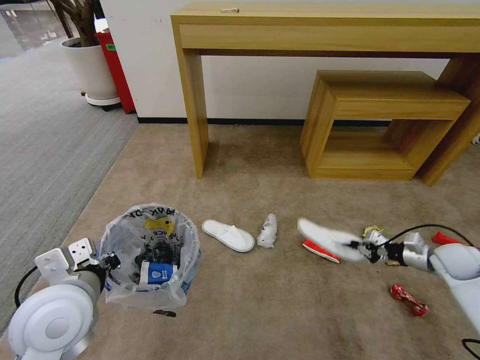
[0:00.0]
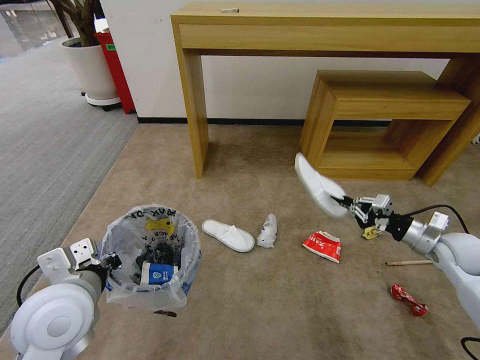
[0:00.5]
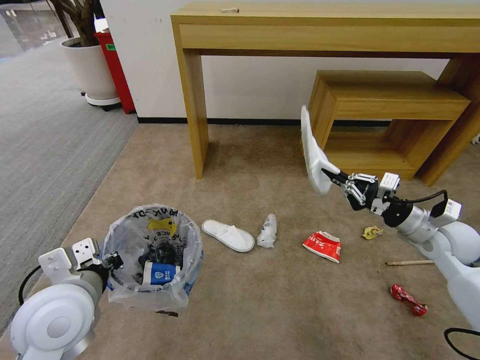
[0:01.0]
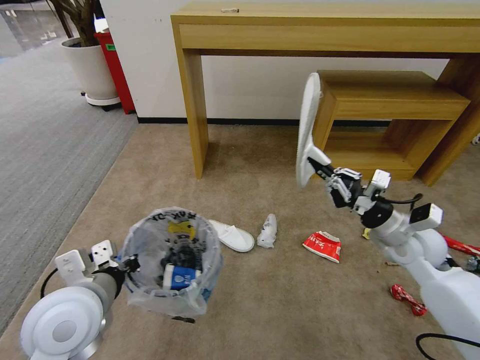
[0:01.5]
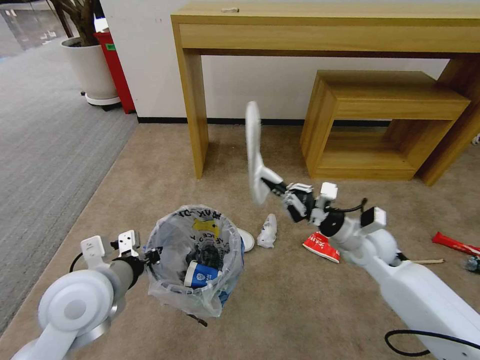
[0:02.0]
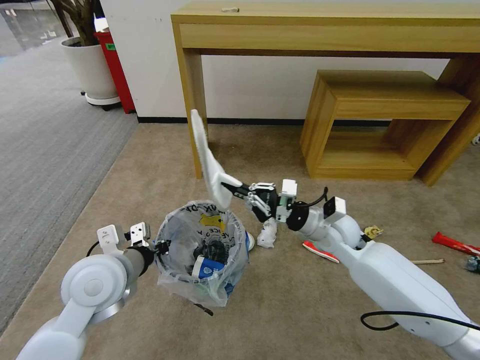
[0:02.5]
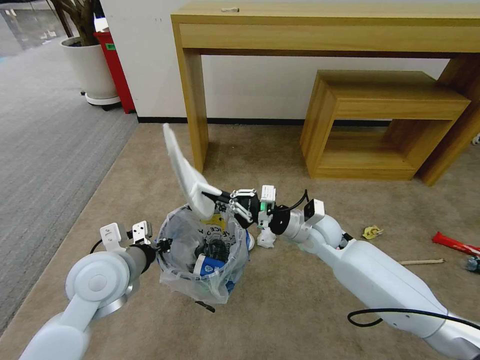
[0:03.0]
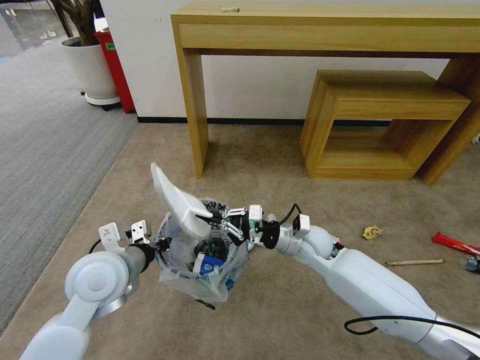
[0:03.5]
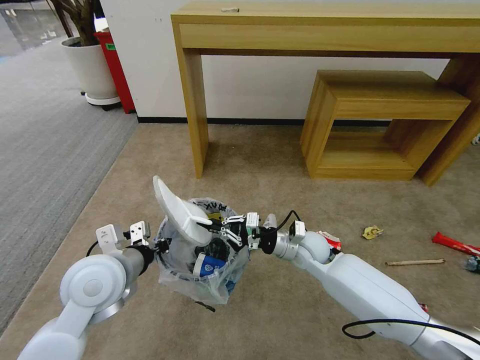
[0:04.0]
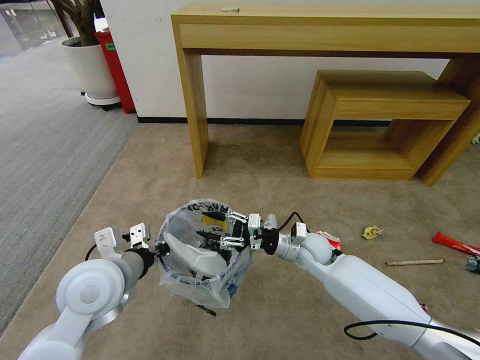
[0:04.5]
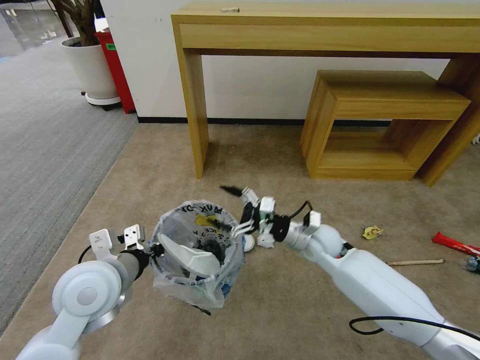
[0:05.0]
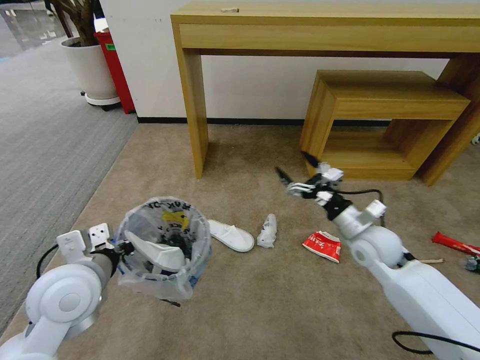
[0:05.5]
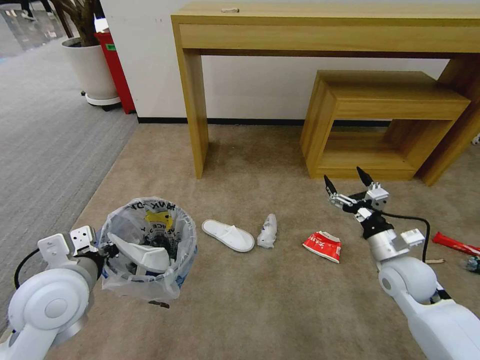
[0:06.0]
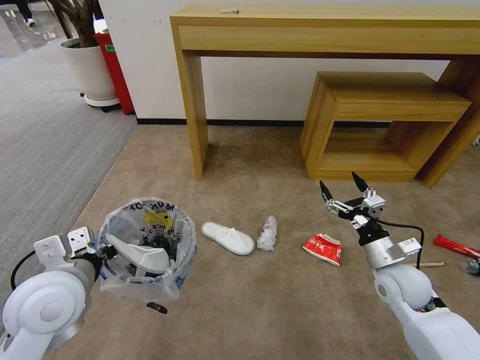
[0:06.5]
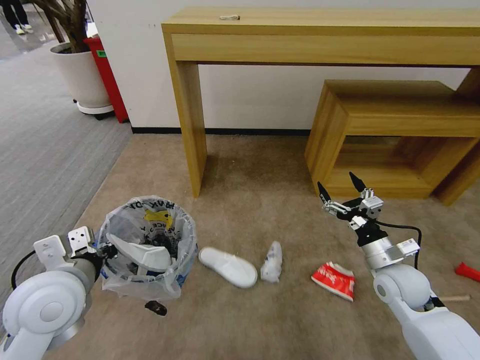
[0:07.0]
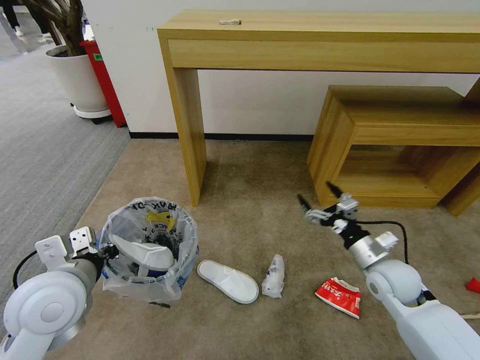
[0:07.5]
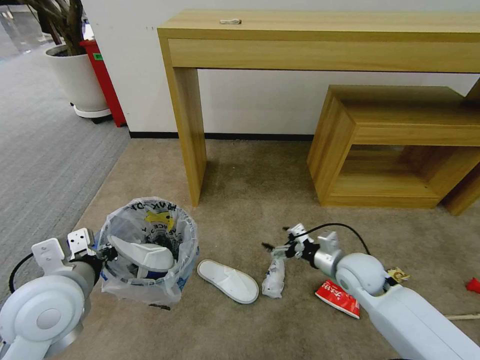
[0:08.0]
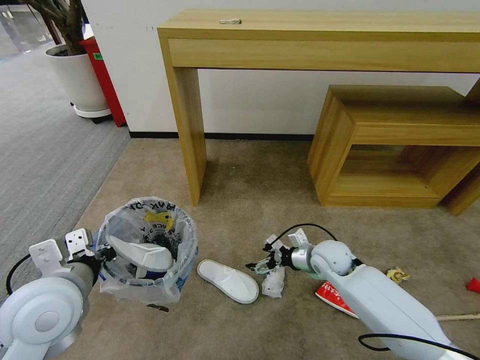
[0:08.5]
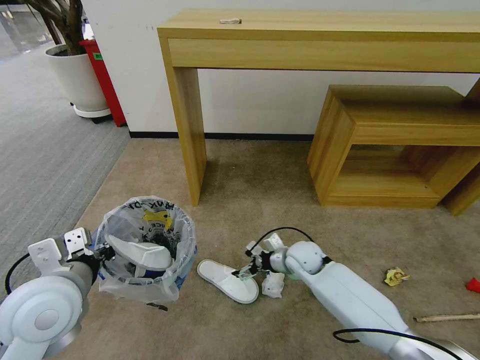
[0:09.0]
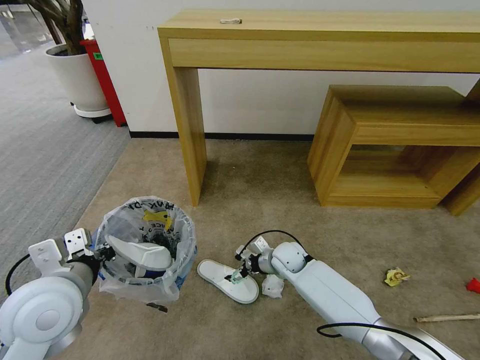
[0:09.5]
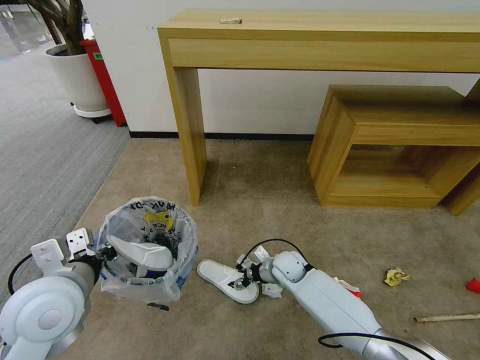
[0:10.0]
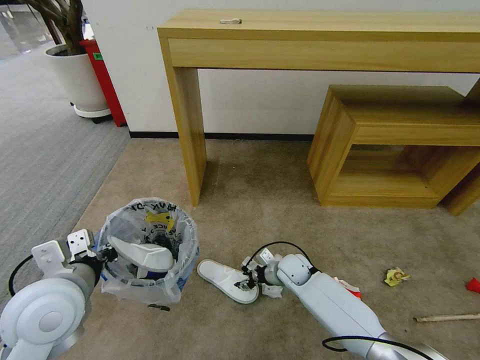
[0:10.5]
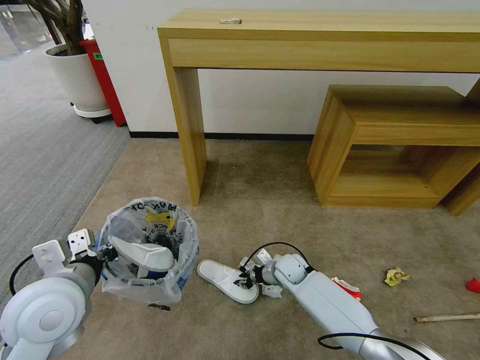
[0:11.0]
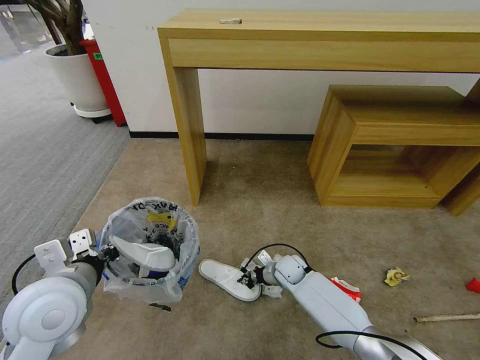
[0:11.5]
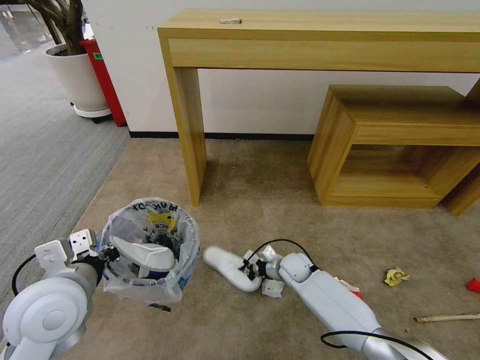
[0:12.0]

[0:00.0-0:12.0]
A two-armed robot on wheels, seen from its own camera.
Task of the whole recording: Pick up the trash bin and place the garbage on the floor into it.
0:00.0 to 0:02.0: The right gripper heads to the left, covering approximately 25 cm.
0:02.0 to 0:04.0: The right gripper travels to the left and downward by roughly 15 cm.
0:04.0 to 0:06.0: The left gripper changes place by approximately 5 cm. The right gripper travels to the right and backward by about 20 cm, and opens up.
0:06.0 to 0:08.0: The right gripper is displaced to the left by approximately 10 cm.
0:08.0 to 0:10.0: The right gripper shifts about 20 cm to the left, downward and forward.
0:10.0 to 0:12.0: The right gripper closes.

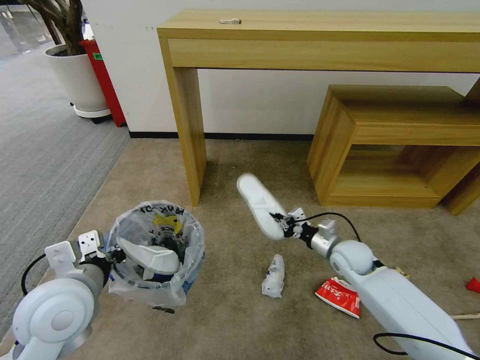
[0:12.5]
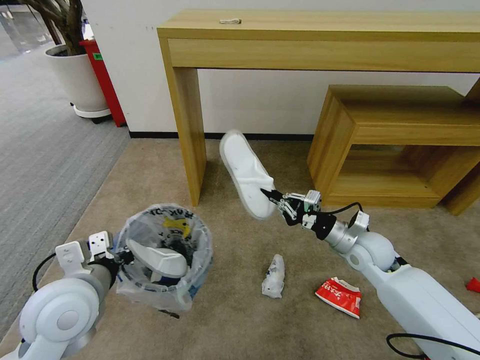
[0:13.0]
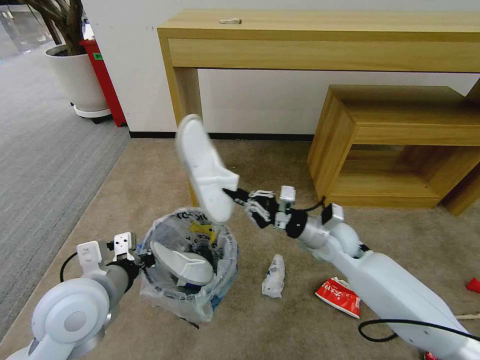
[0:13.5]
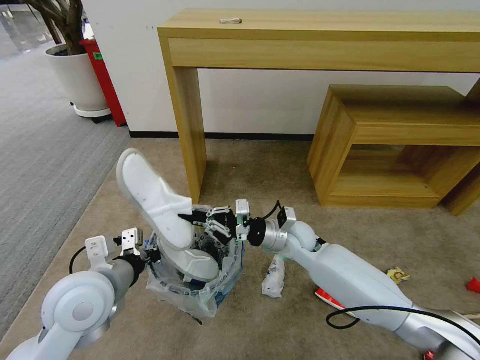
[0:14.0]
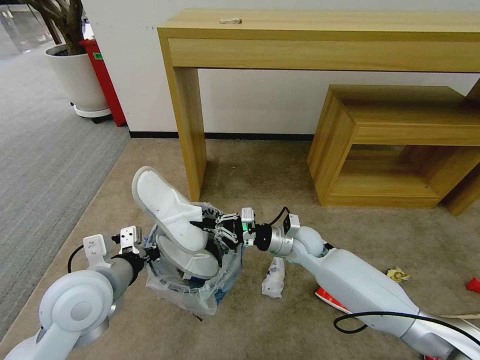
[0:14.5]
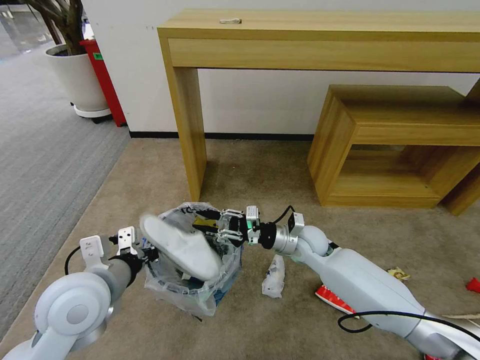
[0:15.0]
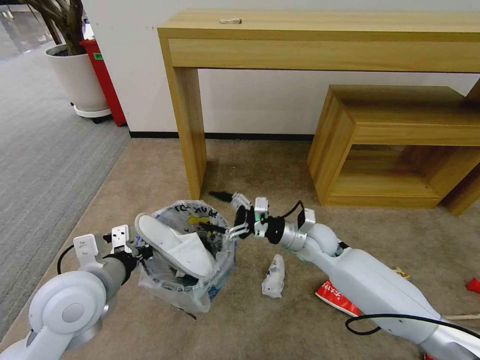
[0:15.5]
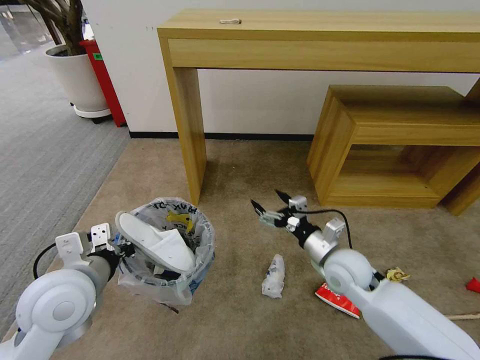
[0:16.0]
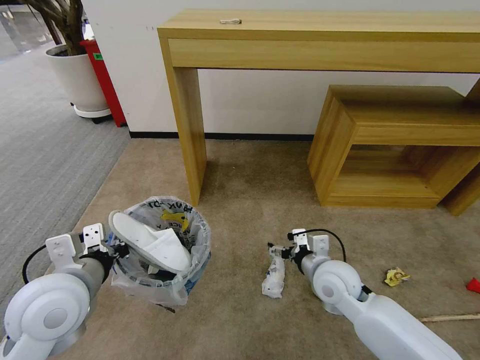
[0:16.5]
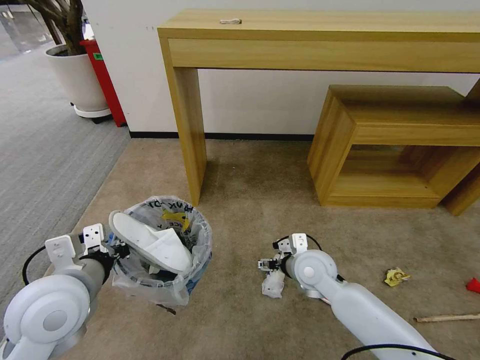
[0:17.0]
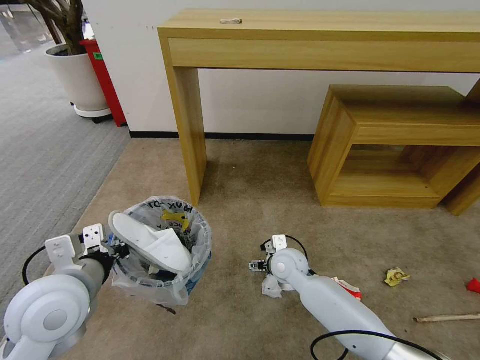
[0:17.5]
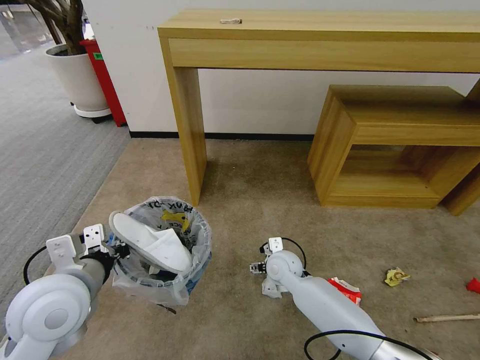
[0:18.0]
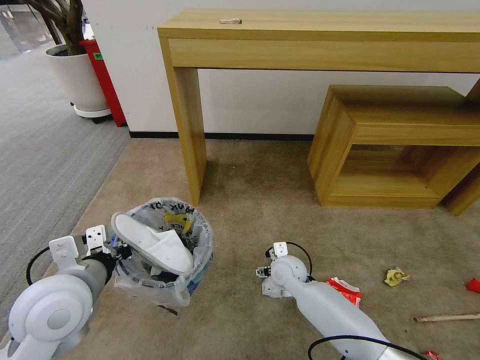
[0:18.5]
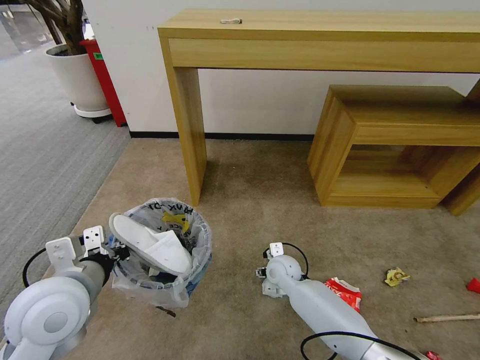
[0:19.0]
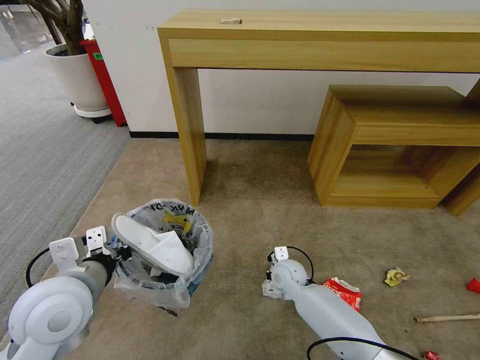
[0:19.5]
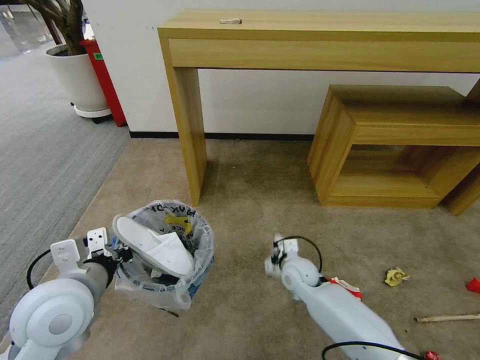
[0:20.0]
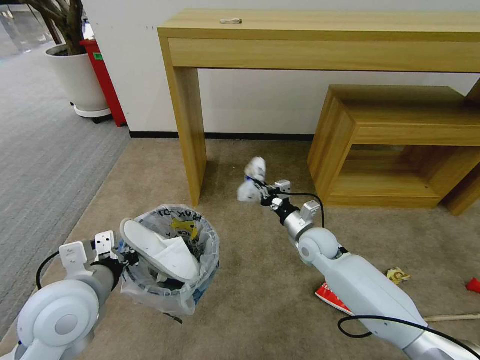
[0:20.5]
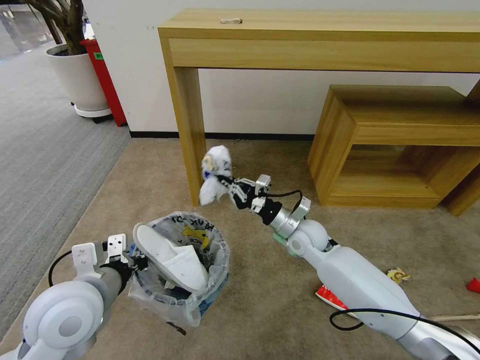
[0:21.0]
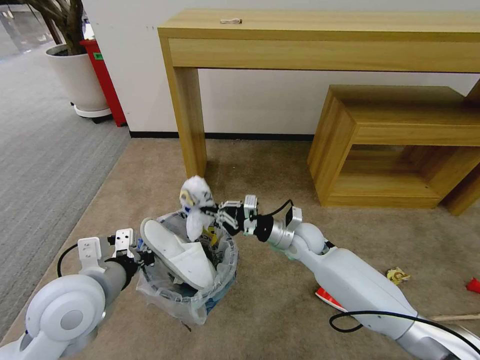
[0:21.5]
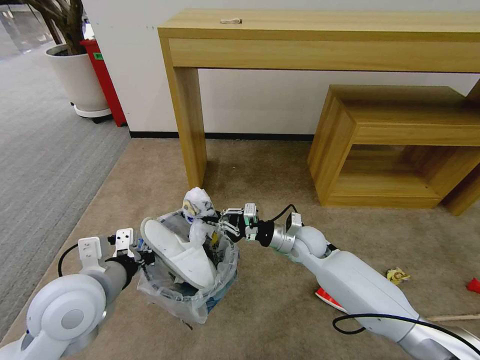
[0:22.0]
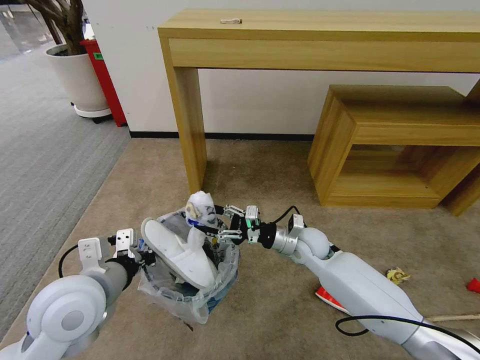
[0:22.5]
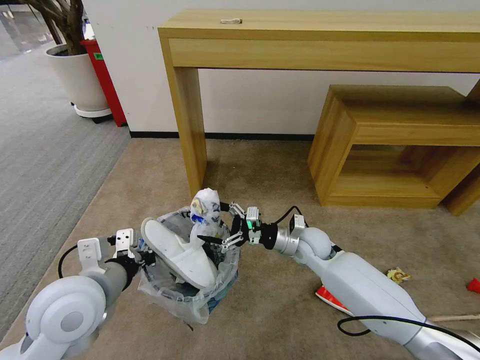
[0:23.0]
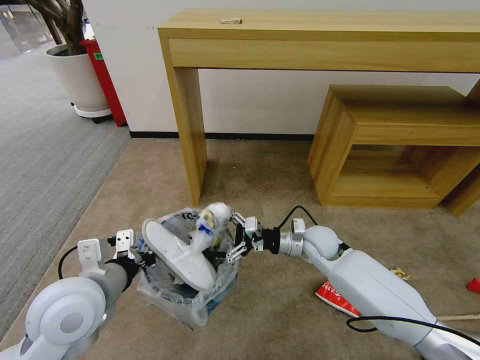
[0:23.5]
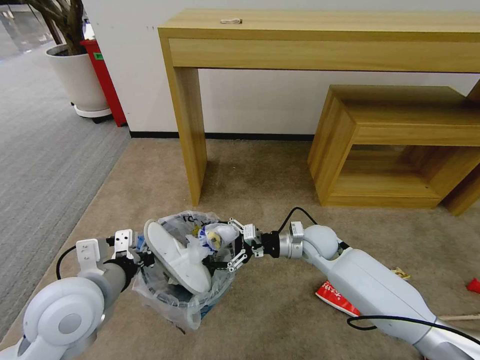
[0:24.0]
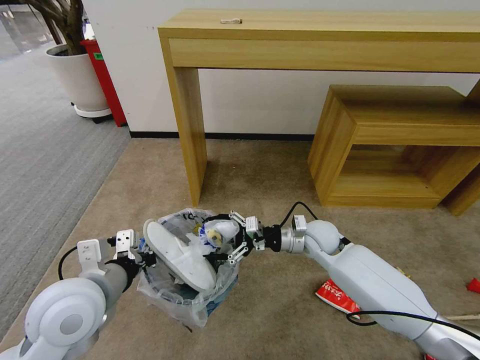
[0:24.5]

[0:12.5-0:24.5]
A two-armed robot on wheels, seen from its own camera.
Task of the whole recording: Pick up the trash bin and place the garbage on the floor into it.
0:12.5 to 0:14.5: The right gripper shifts approximately 10 cm to the left.
0:14.5 to 0:16.5: The right gripper moves backward, about 10 cm, and opens.
0:16.5 to 0:18.5: The right gripper shifts some 15 cm downward, to the left and forward.
0:18.5 to 0:20.5: The right gripper is displaced upward and to the right by roughly 10 cm, and closes up.
0:20.5 to 0:22.5: The right gripper opens up.
0:22.5 to 0:24.5: The right gripper opens its fingers.

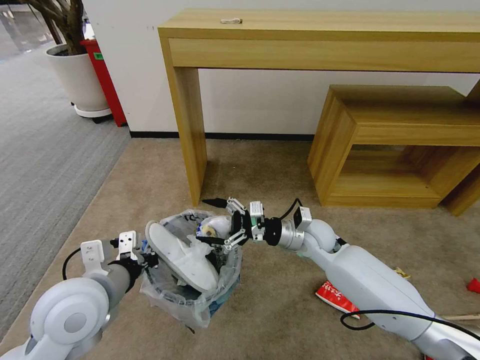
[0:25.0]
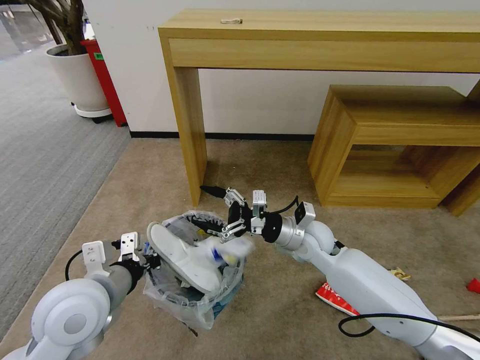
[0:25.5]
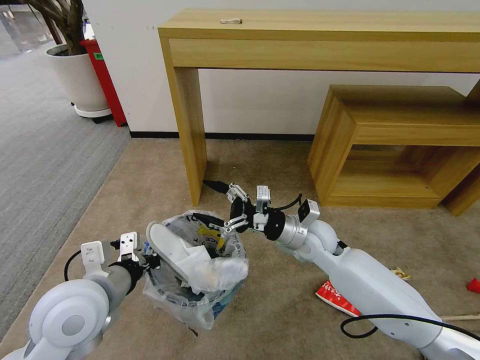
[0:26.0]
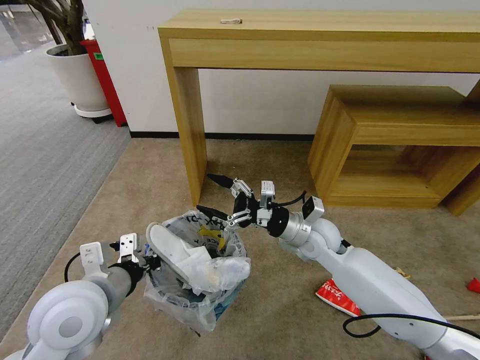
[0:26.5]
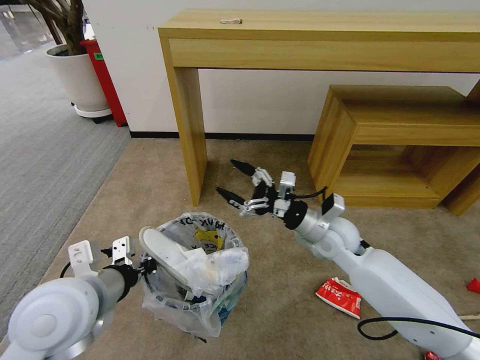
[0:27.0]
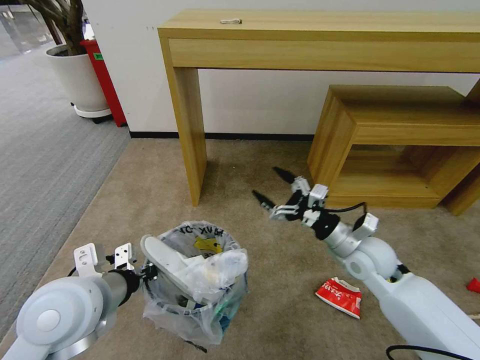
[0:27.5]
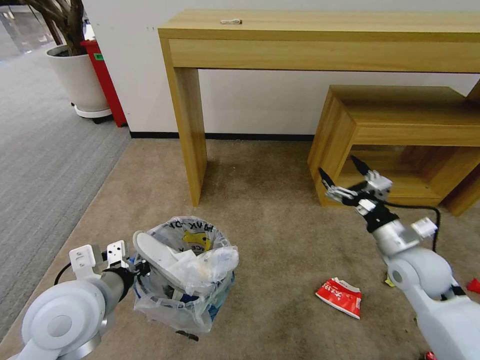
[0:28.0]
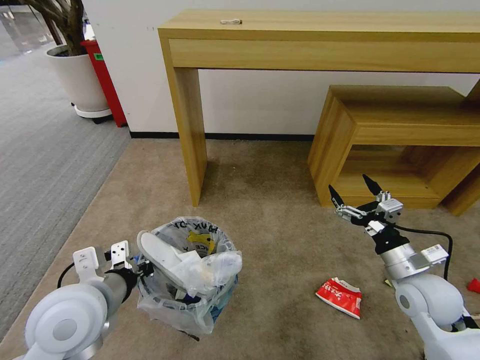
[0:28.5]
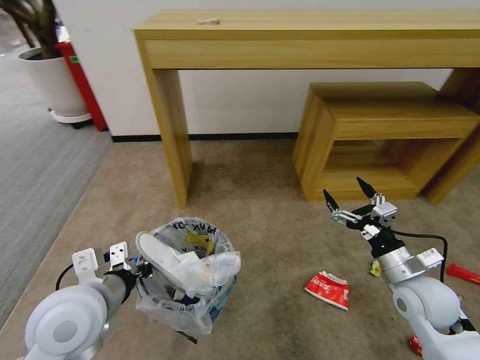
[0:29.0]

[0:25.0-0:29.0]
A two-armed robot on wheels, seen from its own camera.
Task of the whole recording: Pick up the trash bin and place the garbage on the floor into it.
0:25.0 to 0:27.0: The right gripper moves about 5 cm.
0:27.0 to 0:29.0: The right gripper travels to the right and backward by approximately 20 cm.
